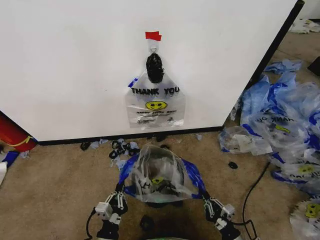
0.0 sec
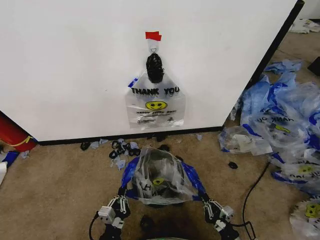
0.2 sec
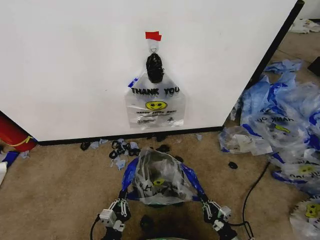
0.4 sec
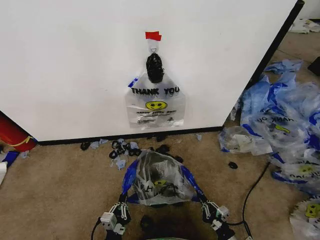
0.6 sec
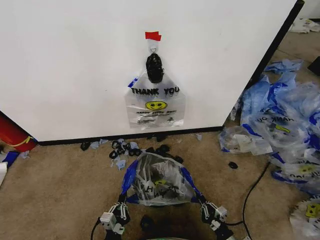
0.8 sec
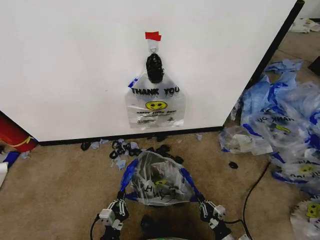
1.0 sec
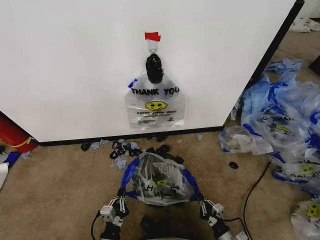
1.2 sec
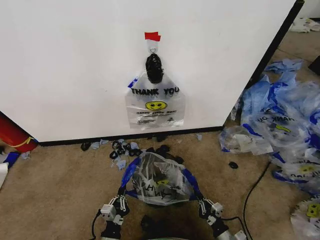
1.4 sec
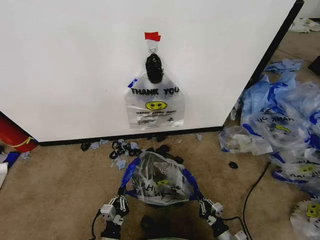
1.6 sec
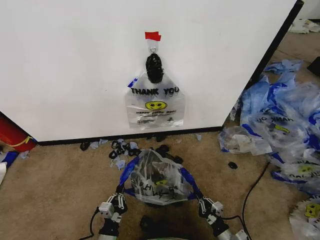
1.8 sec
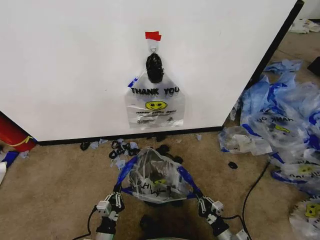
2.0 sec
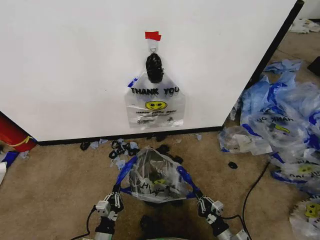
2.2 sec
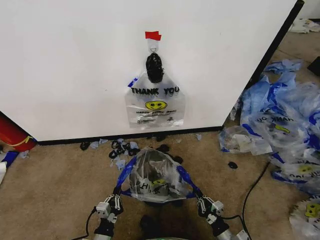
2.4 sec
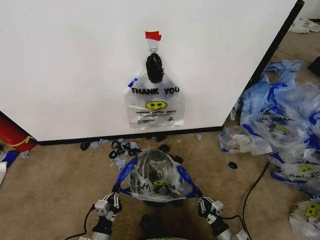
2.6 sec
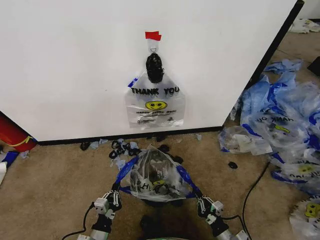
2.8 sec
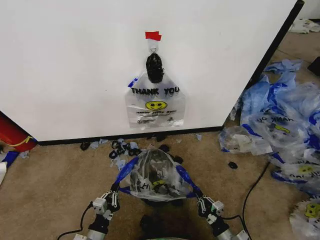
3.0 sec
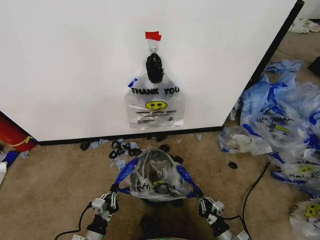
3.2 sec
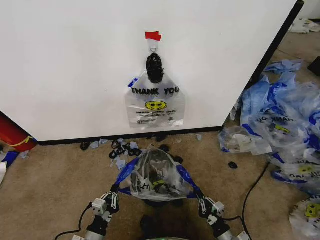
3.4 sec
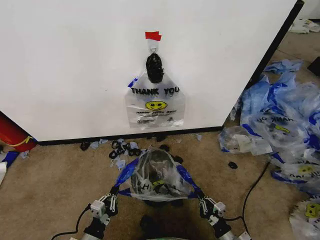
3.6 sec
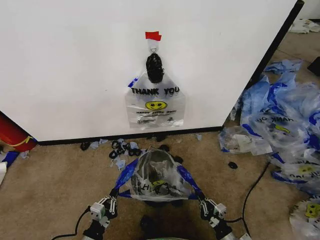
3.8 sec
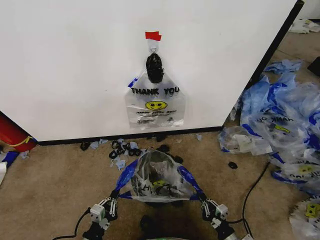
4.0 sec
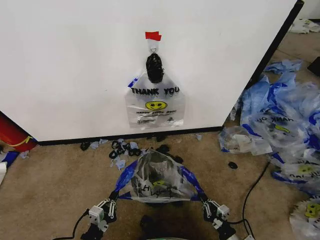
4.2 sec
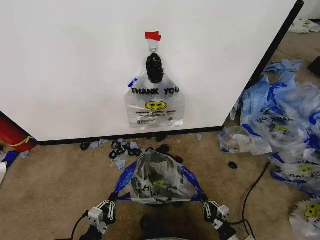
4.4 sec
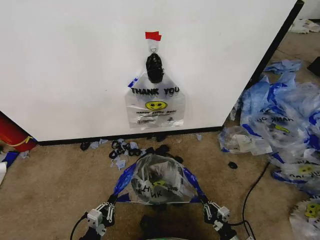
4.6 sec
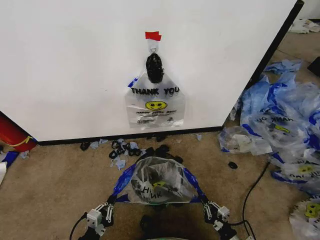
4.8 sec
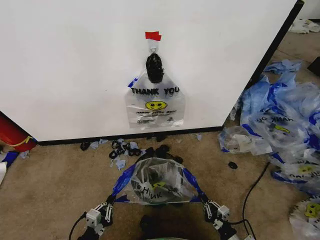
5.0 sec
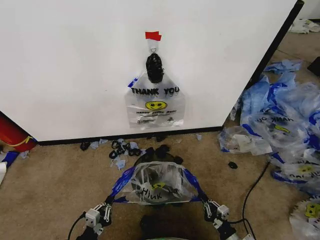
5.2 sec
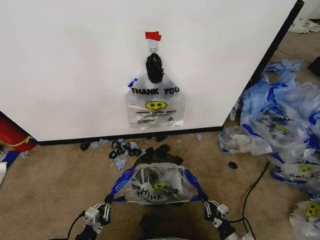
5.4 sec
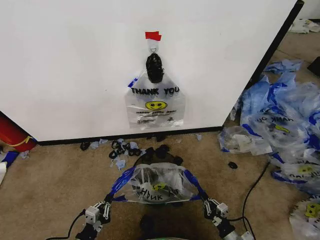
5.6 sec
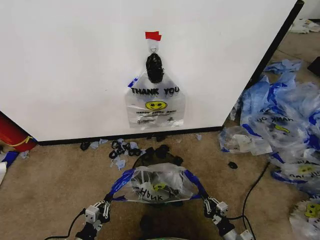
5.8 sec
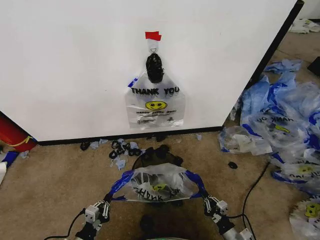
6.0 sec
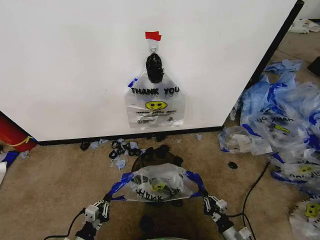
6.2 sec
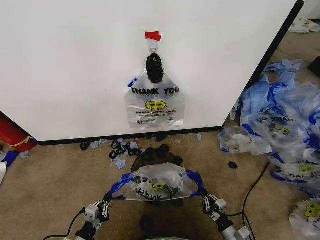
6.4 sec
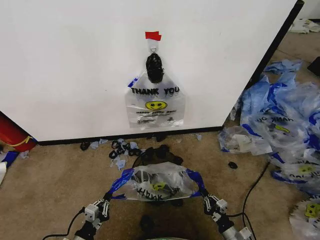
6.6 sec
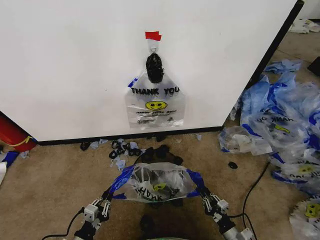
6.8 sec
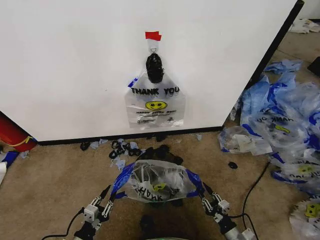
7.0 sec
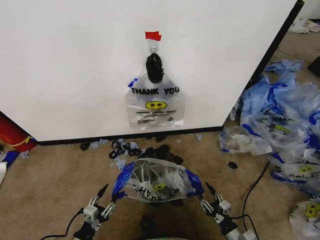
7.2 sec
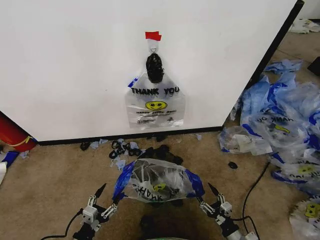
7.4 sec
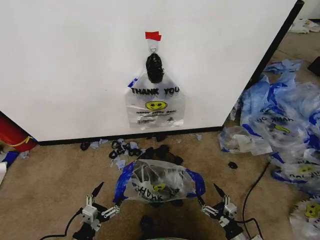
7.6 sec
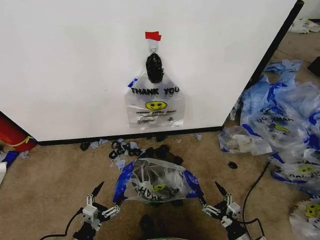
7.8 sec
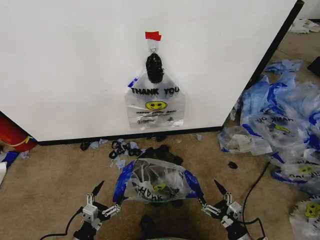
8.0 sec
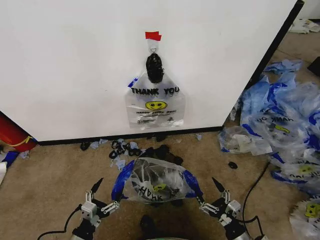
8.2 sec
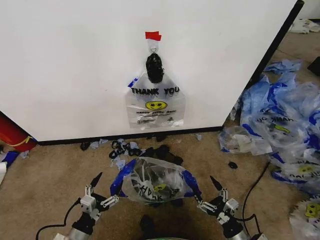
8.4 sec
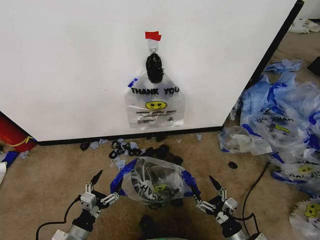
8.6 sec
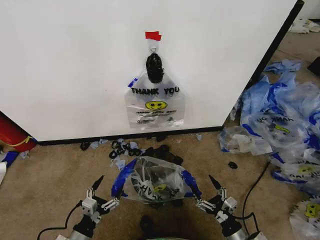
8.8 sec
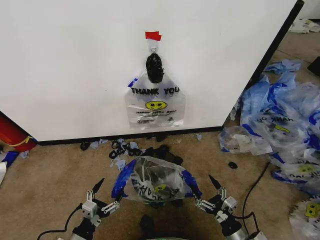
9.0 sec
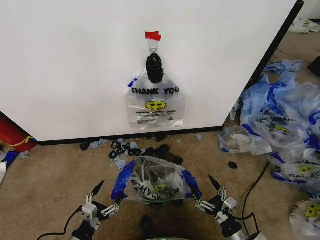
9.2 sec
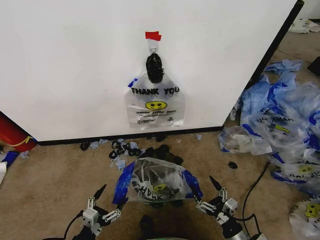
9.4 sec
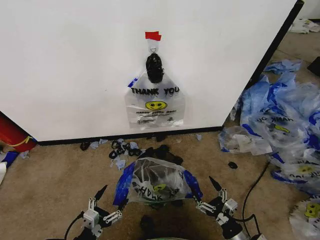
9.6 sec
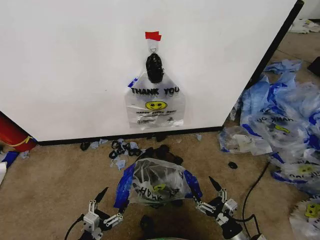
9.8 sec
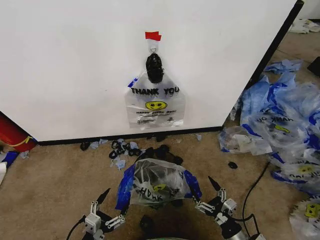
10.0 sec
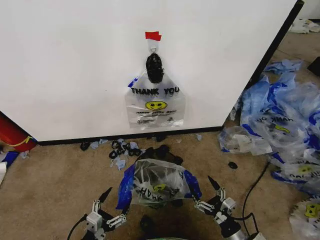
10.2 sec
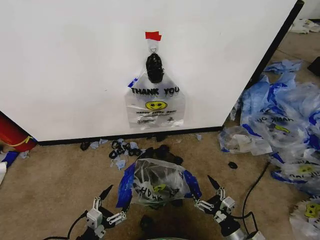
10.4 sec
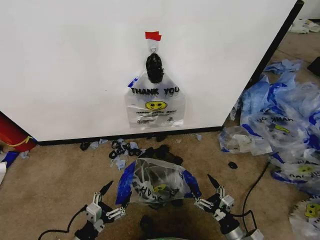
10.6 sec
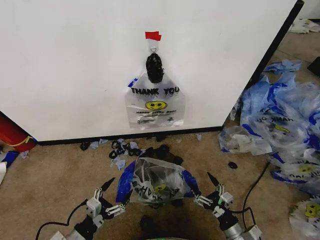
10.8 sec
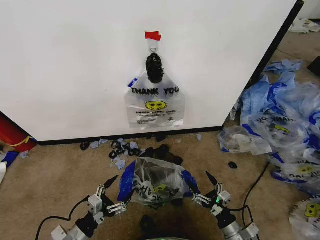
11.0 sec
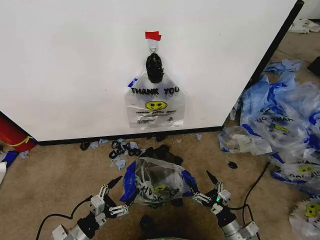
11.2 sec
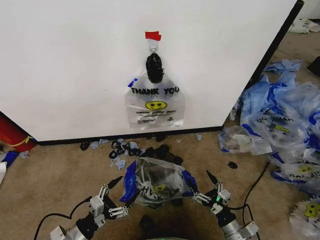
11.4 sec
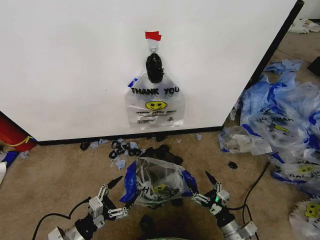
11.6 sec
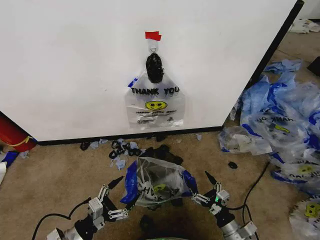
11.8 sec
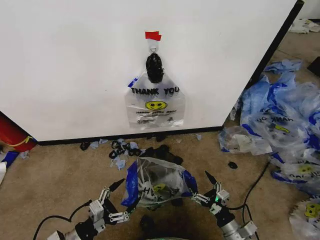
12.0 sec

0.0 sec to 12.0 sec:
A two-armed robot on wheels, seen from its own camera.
Task of the whole recording: Pick up the garbage bag from the wall and place it over the trash bin.
0.0 sec to 1.6 sec: The two grippers go roughly 5 cm downward.
1.6 sec to 3.0 sec: The left gripper changes place by some 5 cm.
3.0 sec to 4.4 sec: The left gripper ends up roughly 5 cm from where it was.
4.4 sec to 6.0 sec: The grippers make only small movements.
6.0 sec to 7.6 sec: The right gripper opens up. The left gripper opens up.
7.6 sec to 9.0 sec: The right gripper shifts some 5 cm upward.
9.0 sec to 10.4 sec: The grippers stay close to where they were, moving slightly.
10.4 sec to 12.0 sec: The left gripper changes place by about 5 cm.

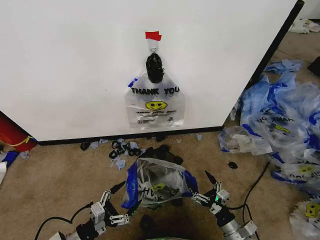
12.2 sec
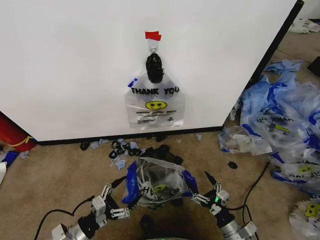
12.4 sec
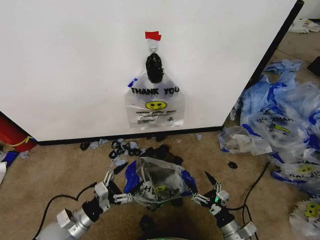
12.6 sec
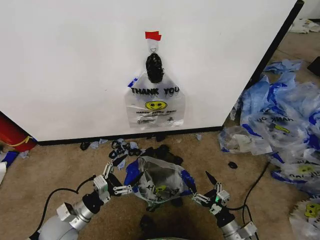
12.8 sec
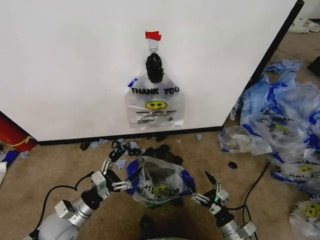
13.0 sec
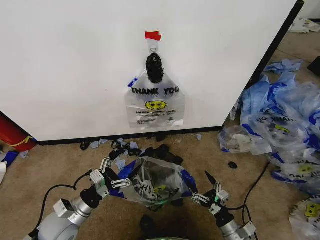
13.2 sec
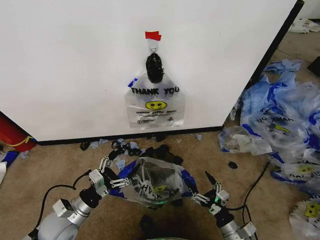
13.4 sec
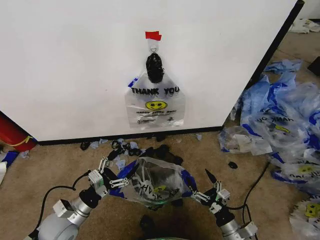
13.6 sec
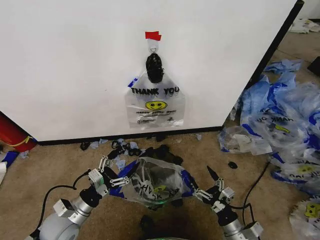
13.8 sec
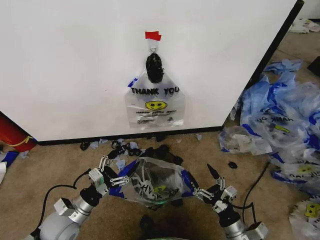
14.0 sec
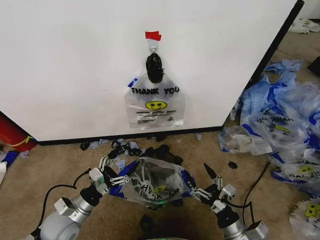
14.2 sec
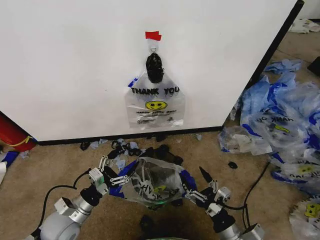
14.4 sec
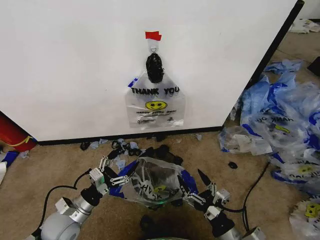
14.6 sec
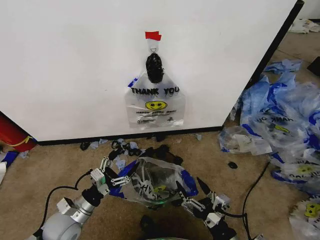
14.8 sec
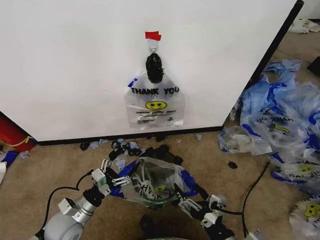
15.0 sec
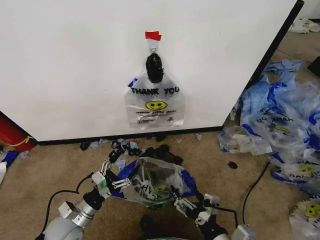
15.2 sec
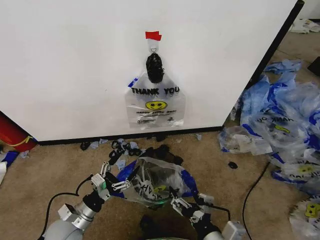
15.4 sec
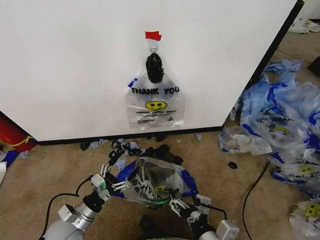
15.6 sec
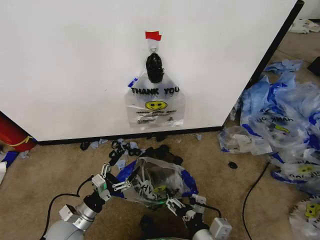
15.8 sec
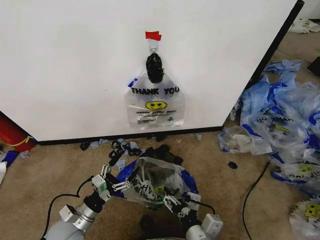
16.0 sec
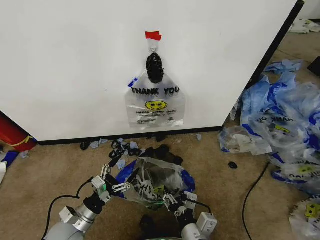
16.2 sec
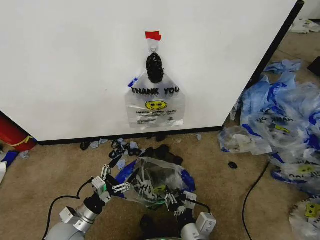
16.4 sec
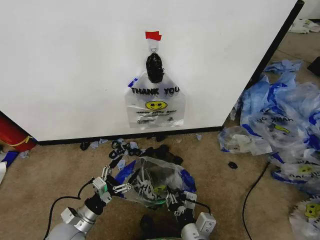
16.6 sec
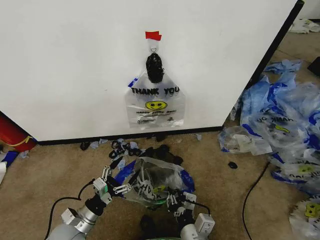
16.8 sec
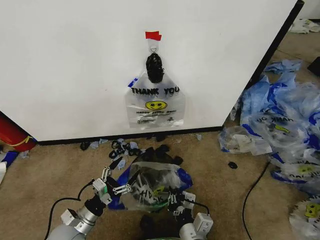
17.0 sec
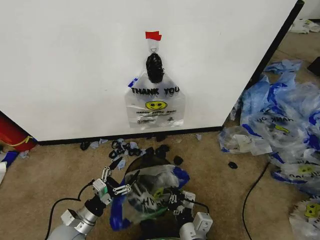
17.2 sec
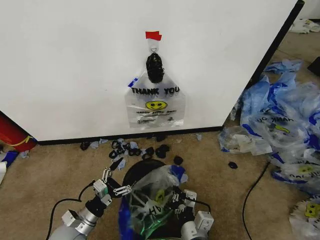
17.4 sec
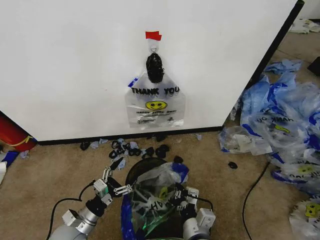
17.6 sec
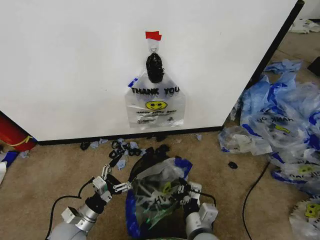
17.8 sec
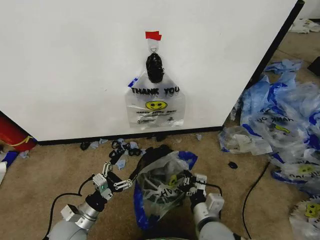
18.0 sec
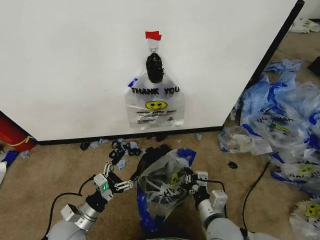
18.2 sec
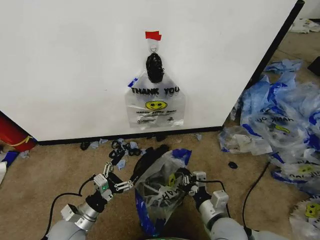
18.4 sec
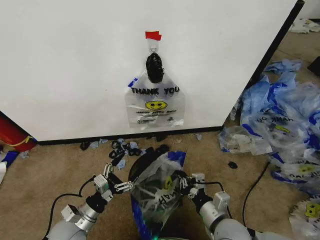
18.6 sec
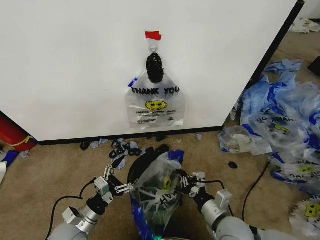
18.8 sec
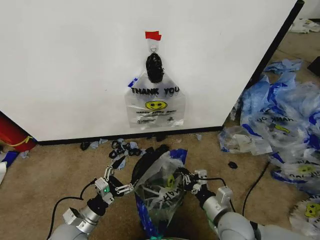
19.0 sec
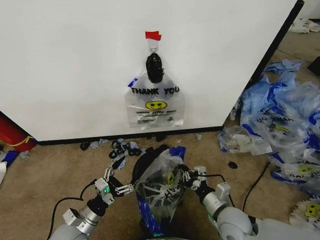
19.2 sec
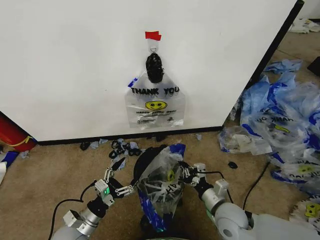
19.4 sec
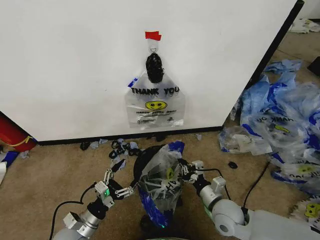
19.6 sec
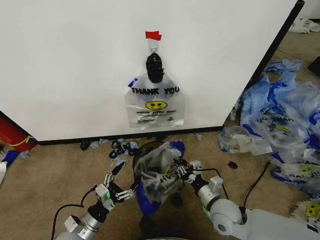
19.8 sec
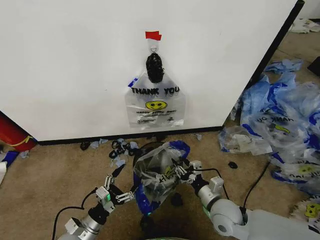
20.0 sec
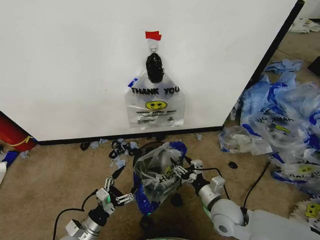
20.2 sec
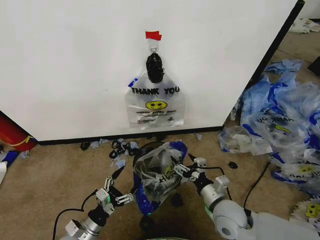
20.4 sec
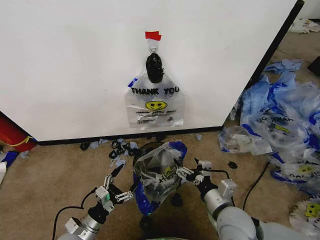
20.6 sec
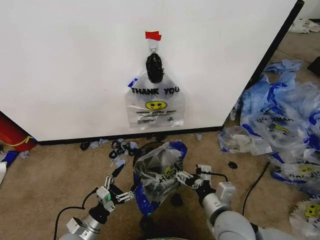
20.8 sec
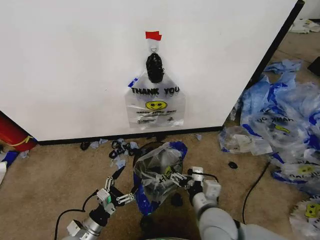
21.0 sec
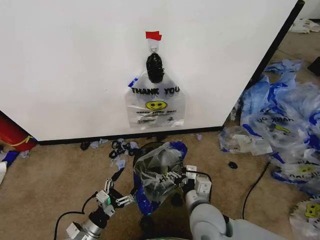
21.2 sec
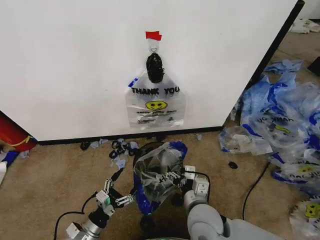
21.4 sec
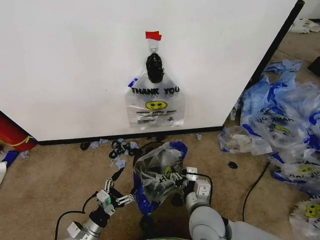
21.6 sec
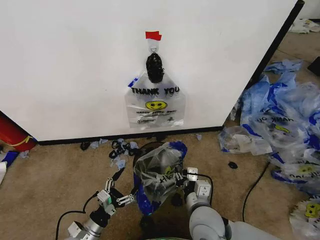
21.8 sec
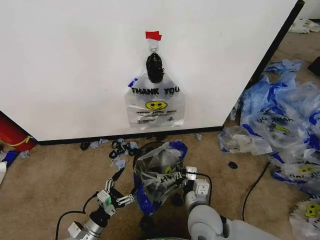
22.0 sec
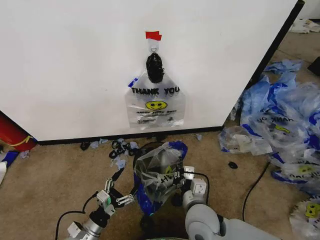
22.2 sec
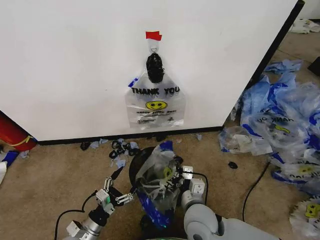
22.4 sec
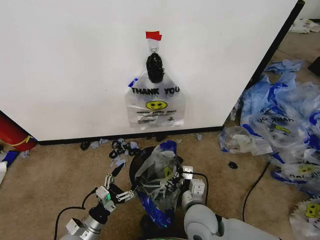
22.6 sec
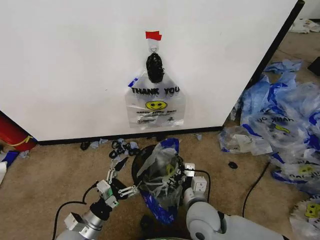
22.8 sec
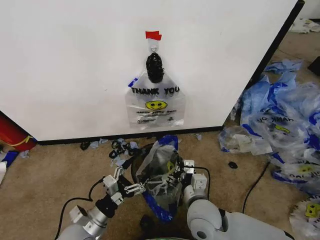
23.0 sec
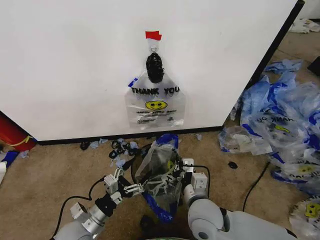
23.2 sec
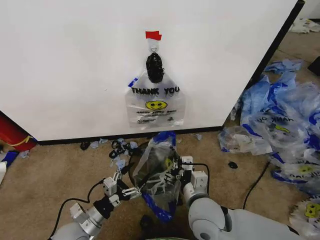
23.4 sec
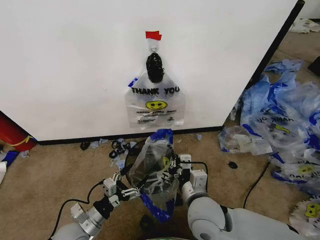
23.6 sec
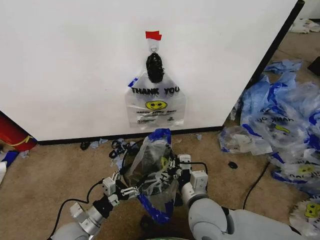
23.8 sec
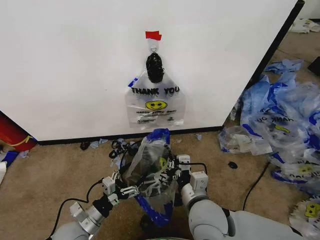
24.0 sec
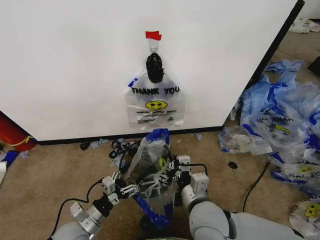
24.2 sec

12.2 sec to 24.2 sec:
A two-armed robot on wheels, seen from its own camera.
Task of the whole recording: Pick up the garbage bag from the wall and place it over the trash bin.
12.2 sec to 13.8 sec: The left gripper shifts about 10 cm forward.
13.8 sec to 15.2 sec: The right gripper moves upward, to the left and backward, some 20 cm.
15.2 sec to 16.6 sec: The right gripper travels to the left by some 10 cm, and closes up.
16.6 sec to 18.2 sec: The right gripper goes some 10 cm forward and to the right, and closes its fingers.
18.2 sec to 19.8 sec: The right gripper is displaced forward by roughly 5 cm.
19.8 sec to 21.2 sec: The right gripper heads to the left and upward, covering some 10 cm, and opens up.
21.2 sec to 22.6 sec: The right gripper closes its fingers.
22.6 sec to 24.2 sec: The right gripper goes approximately 5 cm upward.
